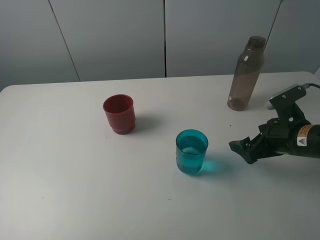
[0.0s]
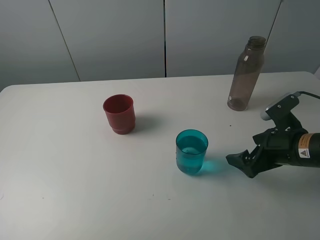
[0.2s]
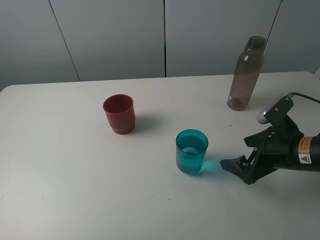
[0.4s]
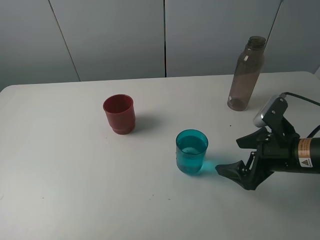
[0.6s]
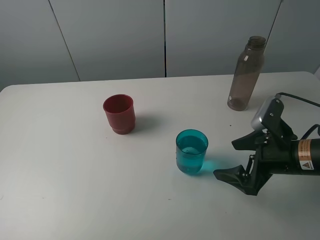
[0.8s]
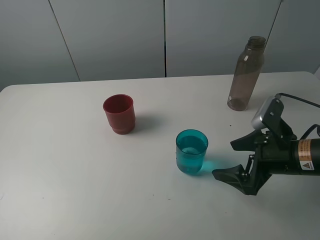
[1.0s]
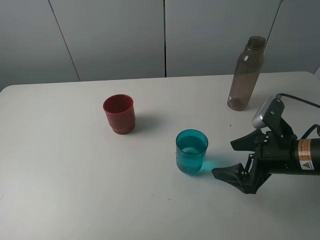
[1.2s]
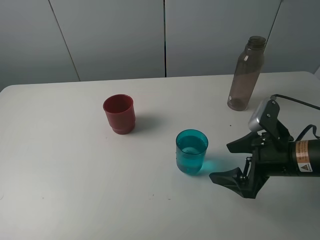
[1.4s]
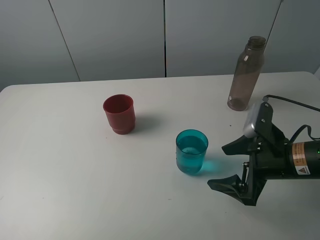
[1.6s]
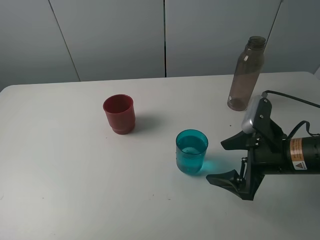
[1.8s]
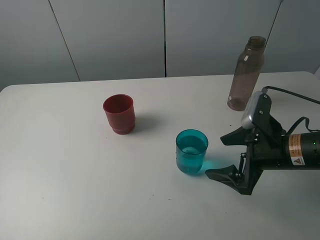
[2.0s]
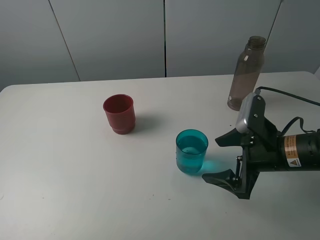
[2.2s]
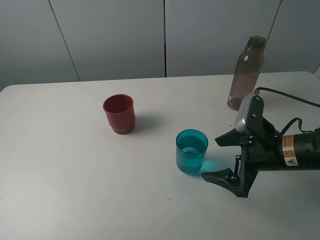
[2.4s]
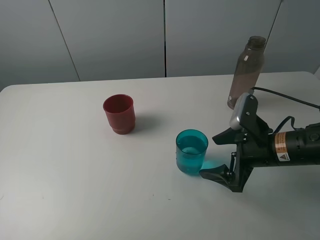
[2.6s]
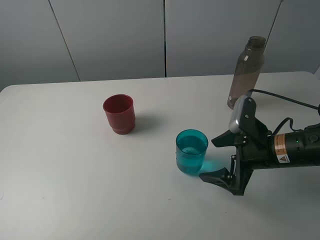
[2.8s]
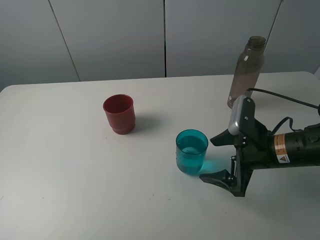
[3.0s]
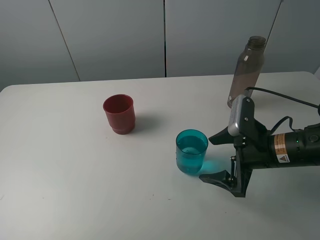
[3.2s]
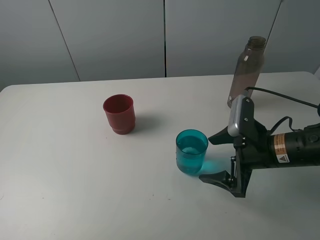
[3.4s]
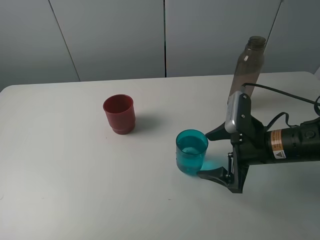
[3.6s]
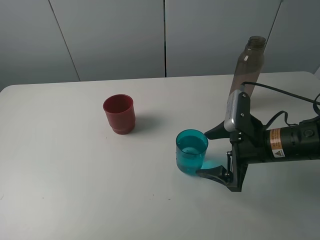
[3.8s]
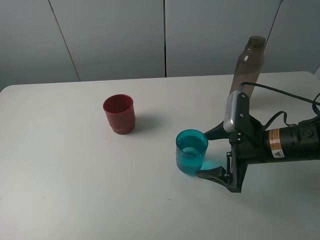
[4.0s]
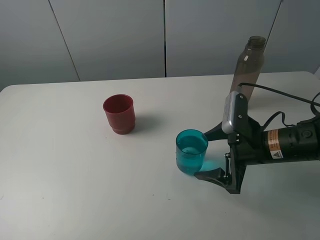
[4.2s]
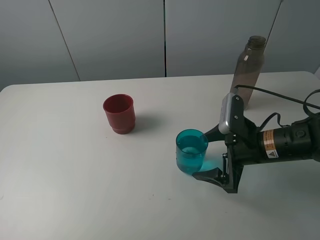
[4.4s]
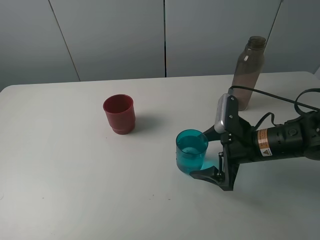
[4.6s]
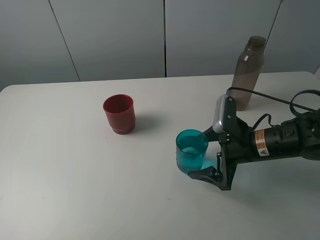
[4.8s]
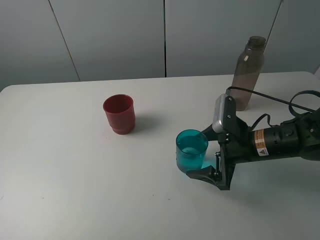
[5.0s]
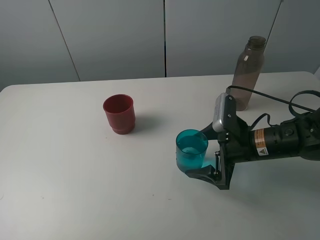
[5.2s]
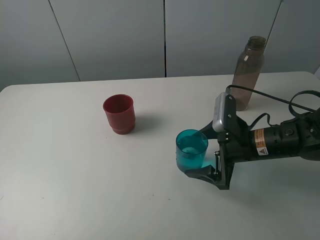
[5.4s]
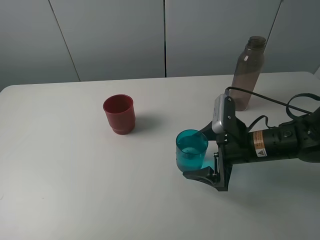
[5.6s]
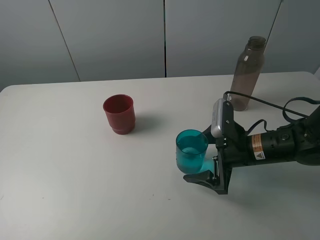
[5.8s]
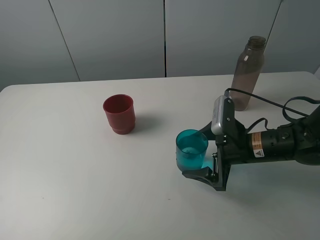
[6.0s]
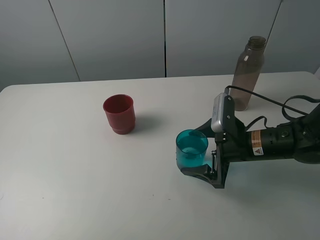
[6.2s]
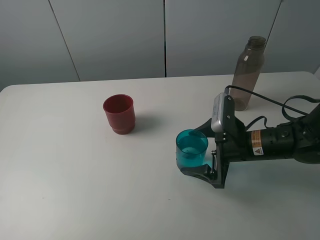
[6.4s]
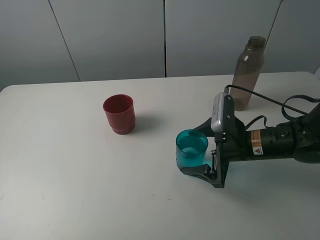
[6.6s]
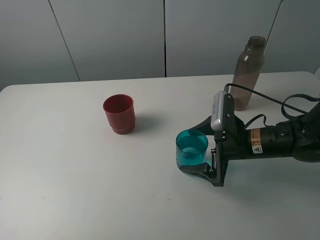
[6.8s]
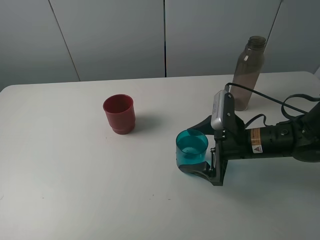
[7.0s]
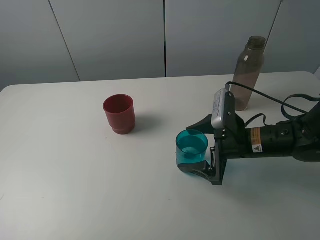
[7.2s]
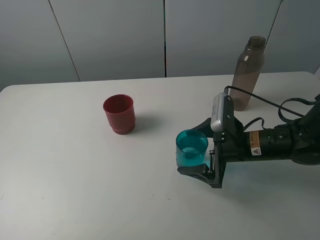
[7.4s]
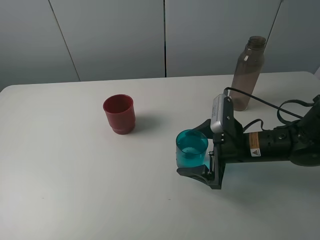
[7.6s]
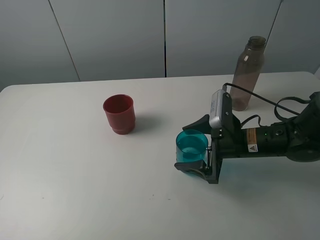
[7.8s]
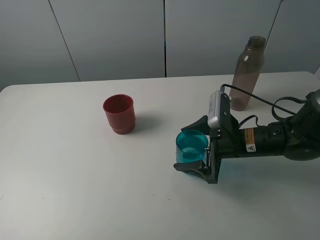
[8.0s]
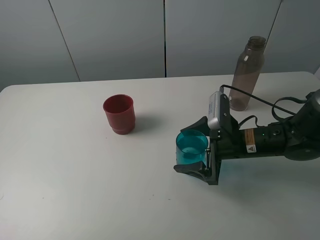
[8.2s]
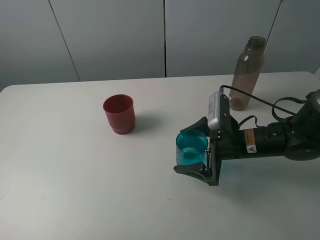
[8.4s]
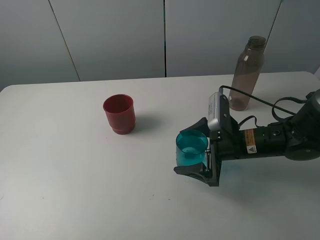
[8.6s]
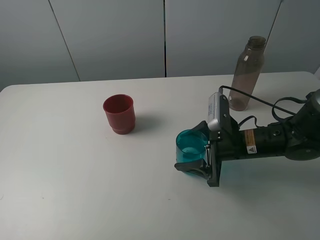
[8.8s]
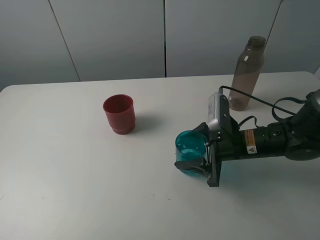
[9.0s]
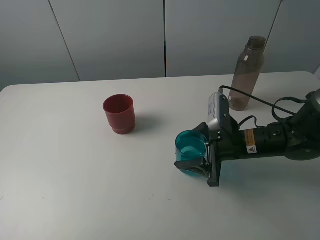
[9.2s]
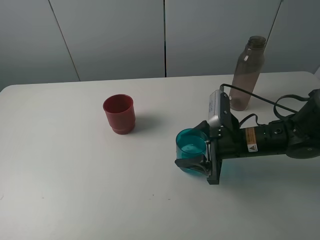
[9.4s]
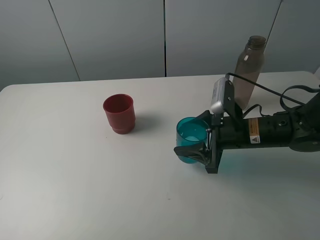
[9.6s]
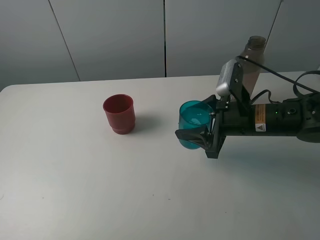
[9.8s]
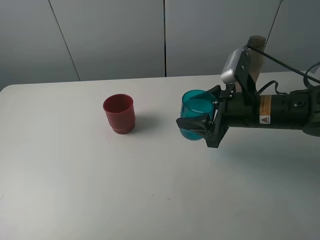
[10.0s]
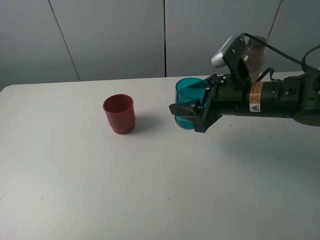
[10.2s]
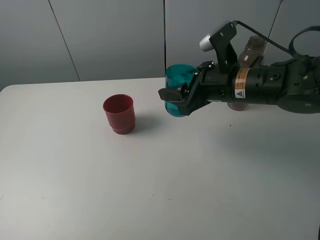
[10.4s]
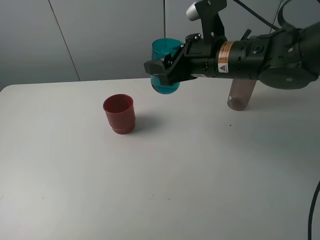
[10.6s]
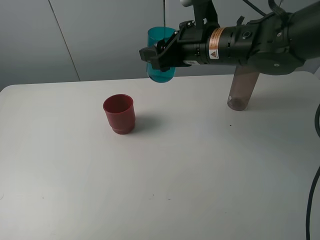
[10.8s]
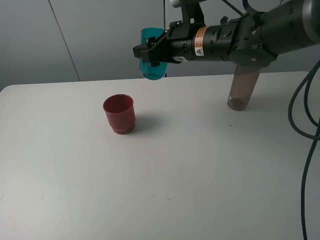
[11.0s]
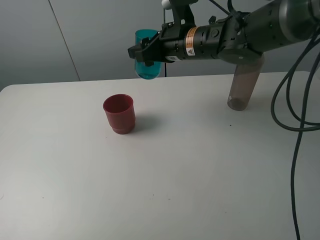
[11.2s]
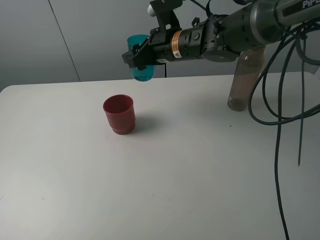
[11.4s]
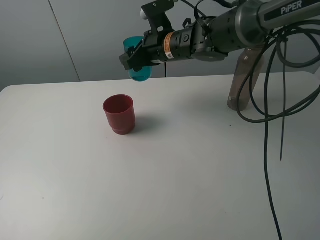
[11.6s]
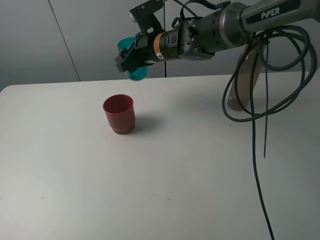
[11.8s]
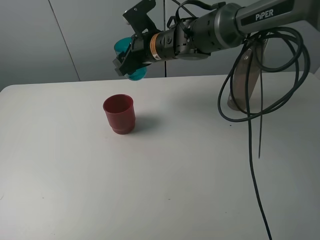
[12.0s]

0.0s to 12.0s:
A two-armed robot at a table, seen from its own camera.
Task of the whole recording: pick up the bottle and pour water into the cup, then pick up the cup containing water and pour it into another cup.
Step, 0.0s to 9.0s: Grasp the blue cup with the right gripper.
0.0s to 1.6s: The right gripper ends up some 5 cm from where it was.
1.6s to 4.4s: There are only small adjustments of the grippers.
4.4s to 7.6s: The grippers move only a little.
7.6s to 9.0s: The right gripper closes its fingers.
9.0s to 10.4s: The right gripper goes some 10 cm upward.
10.4s to 12.0s: The right gripper travels forward and to the left by roughly 20 cm.

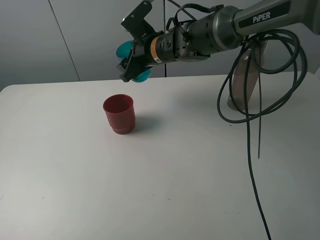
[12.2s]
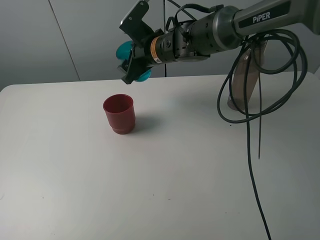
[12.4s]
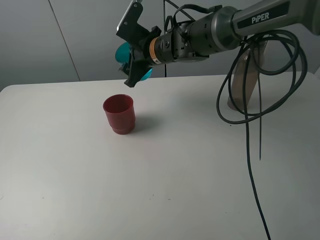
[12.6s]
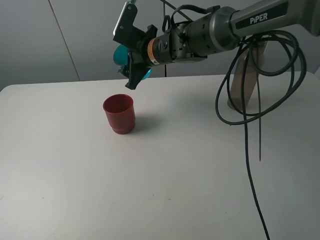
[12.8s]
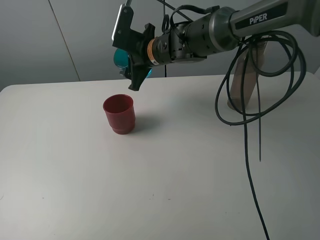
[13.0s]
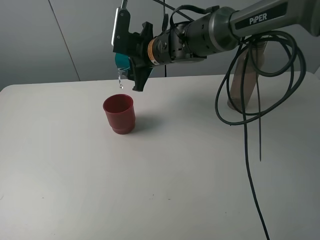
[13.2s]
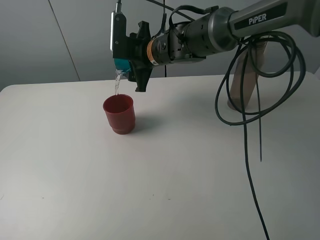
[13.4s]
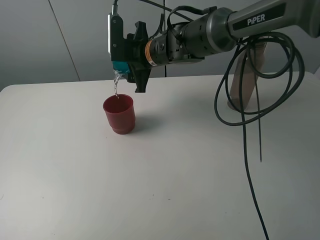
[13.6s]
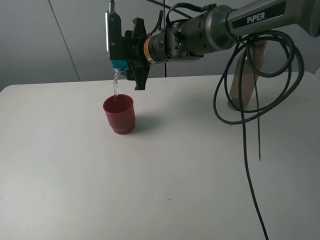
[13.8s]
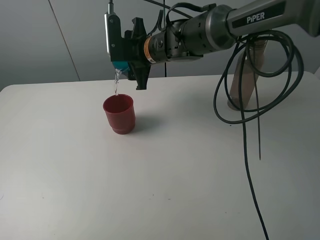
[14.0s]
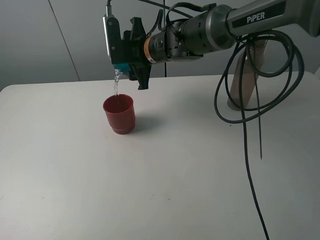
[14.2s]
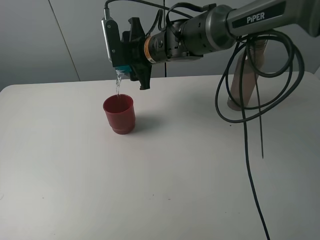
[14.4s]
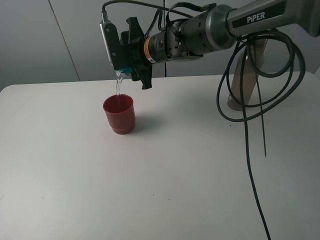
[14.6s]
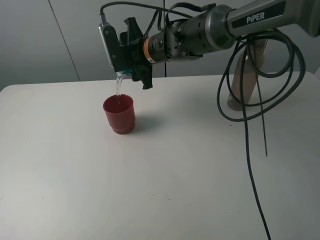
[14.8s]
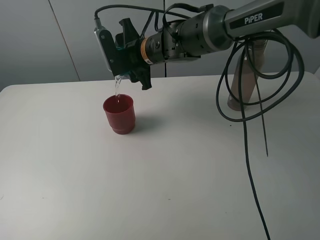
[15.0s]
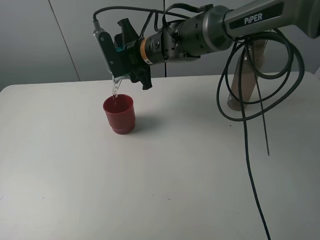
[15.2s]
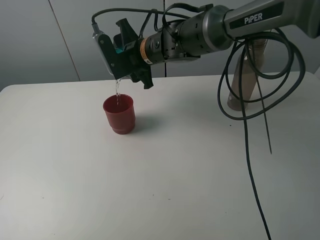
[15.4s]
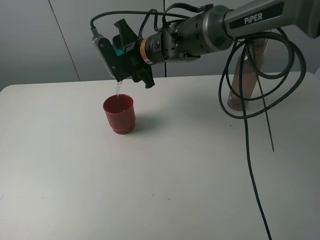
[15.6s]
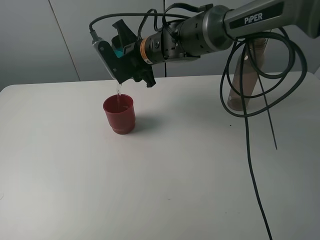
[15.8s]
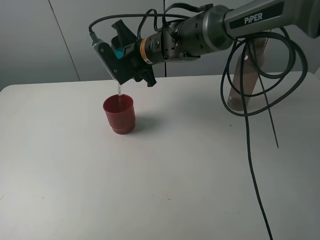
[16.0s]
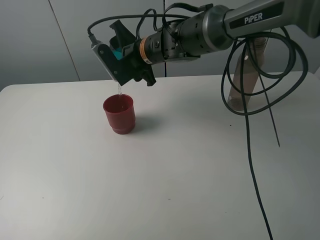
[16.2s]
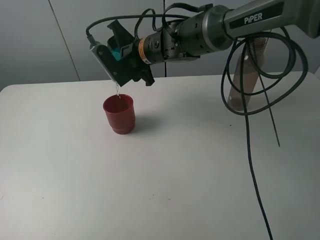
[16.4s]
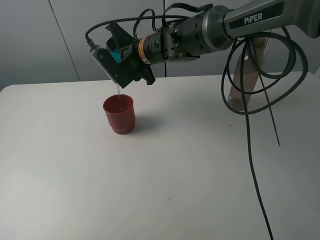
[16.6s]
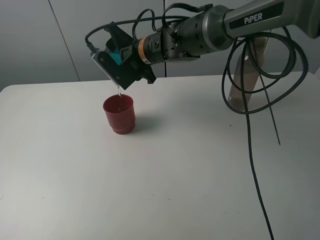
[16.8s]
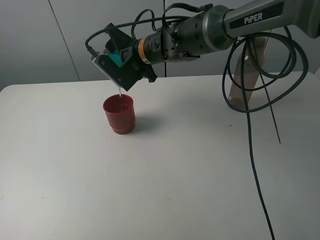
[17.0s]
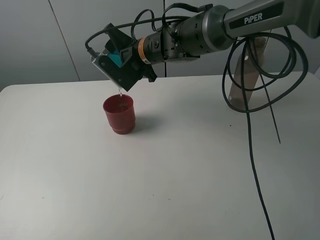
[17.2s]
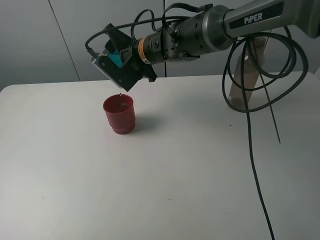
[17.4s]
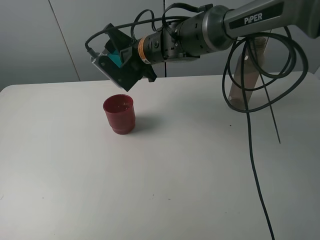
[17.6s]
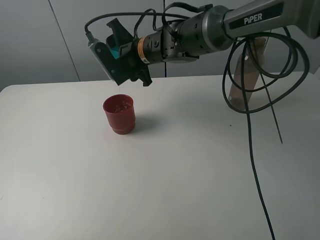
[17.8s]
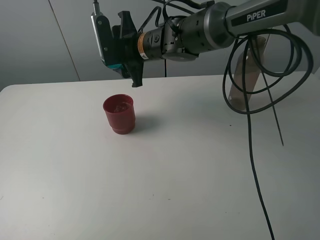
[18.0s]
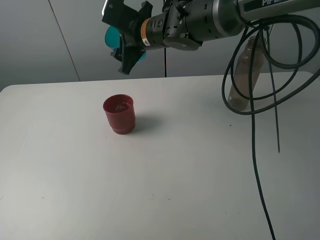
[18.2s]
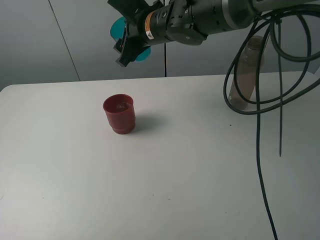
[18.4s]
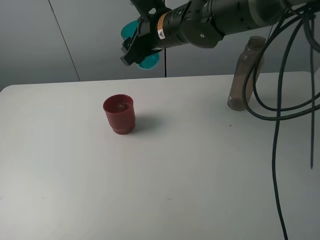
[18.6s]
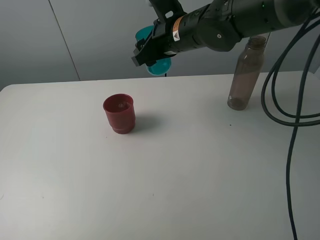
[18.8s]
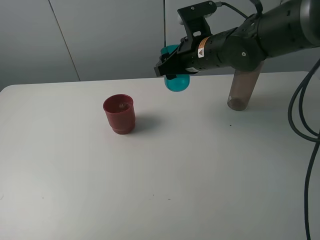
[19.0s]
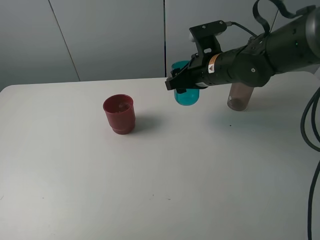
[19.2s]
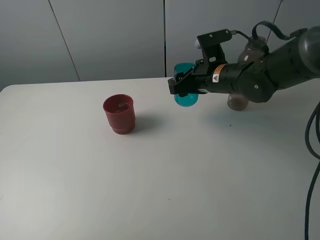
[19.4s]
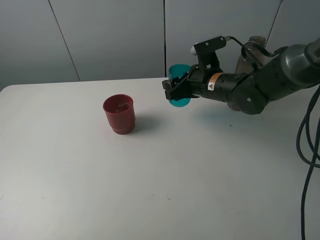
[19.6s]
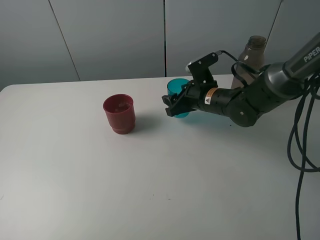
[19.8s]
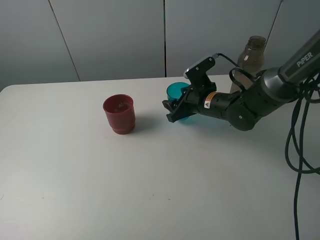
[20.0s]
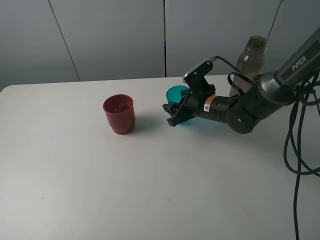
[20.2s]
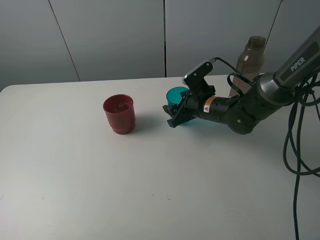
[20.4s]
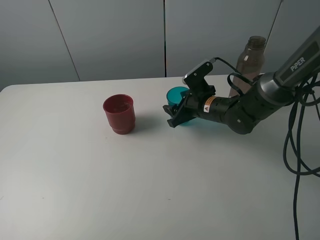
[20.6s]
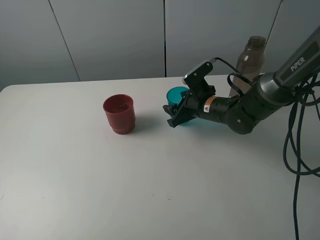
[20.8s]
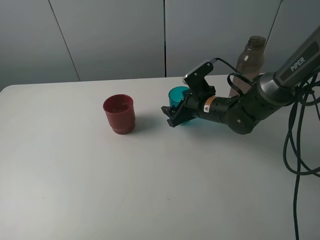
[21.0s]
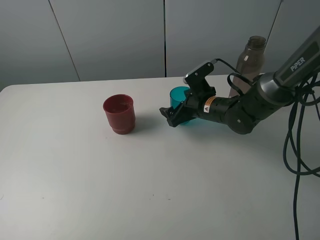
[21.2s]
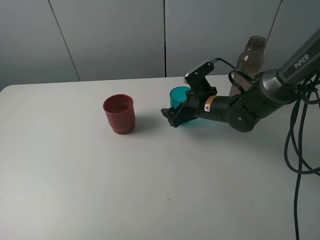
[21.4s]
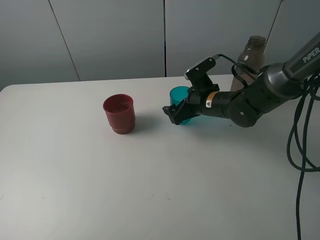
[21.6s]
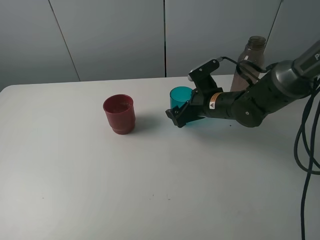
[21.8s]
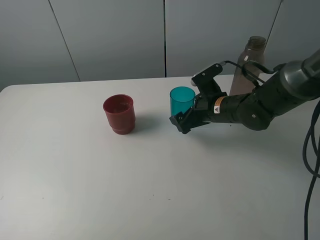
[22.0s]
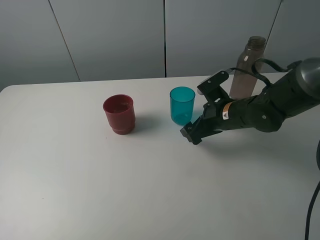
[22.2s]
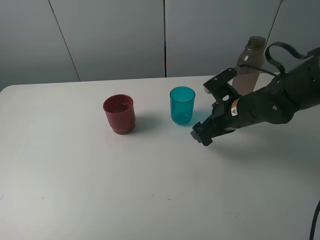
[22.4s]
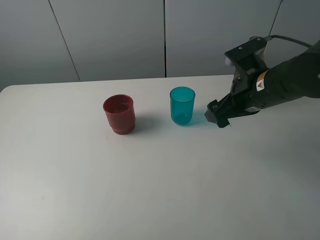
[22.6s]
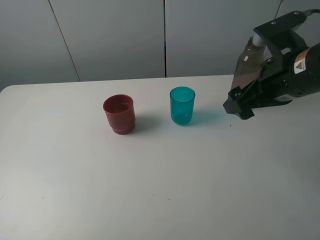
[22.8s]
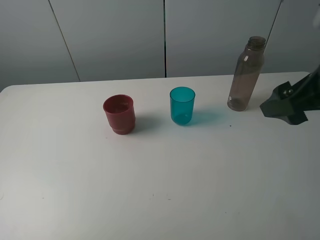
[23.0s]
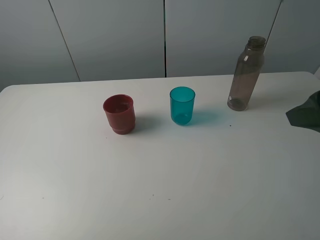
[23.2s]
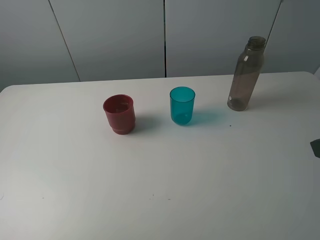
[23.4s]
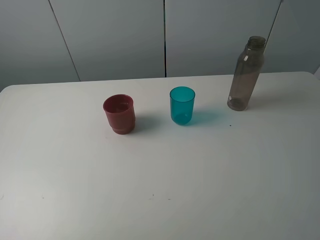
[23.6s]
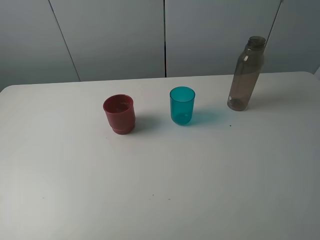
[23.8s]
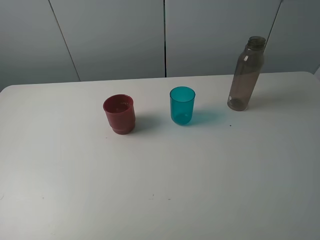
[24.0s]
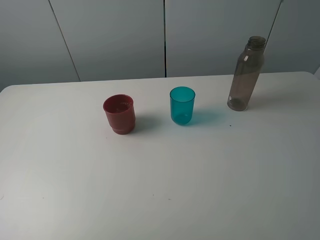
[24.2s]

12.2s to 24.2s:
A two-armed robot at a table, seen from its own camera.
Task of the whole recording: pick up the bottle and pour water into the cup, then pick up the cup containing water and pour it into another cup.
Step, 12.2s to 17.6s: Pour water from blue cup to red cup with the right gripper.
Step, 17.8s to 21.2s: Place the blue cup with the right gripper.
15.2s to 16.6s: The grippers make only small movements.
18.2s to 19.8s: The right gripper heads downward and to the right, covering about 20 cm.
19.8s to 21.2s: The right gripper opens its fingers.
21.2s to 22.6s: The right gripper moves upward, backward and to the right, approximately 15 cm.
22.6s to 24.2s: The right gripper heads backward and to the right, covering approximately 30 cm.
